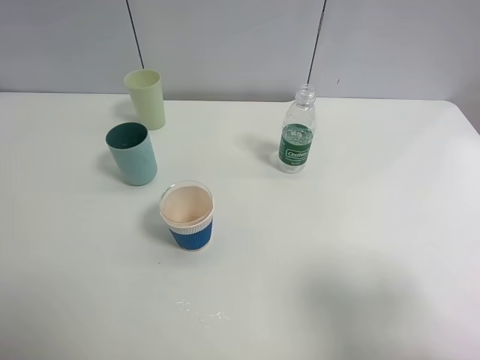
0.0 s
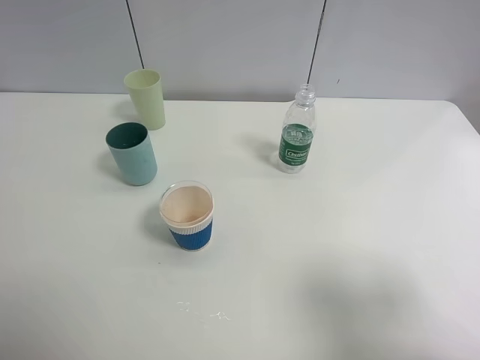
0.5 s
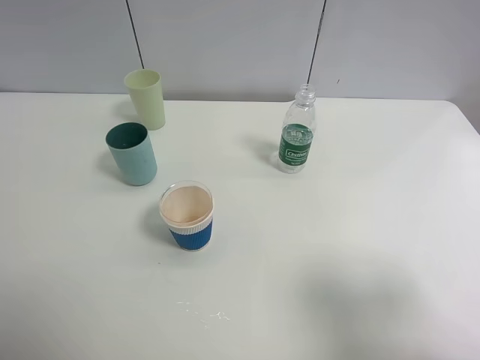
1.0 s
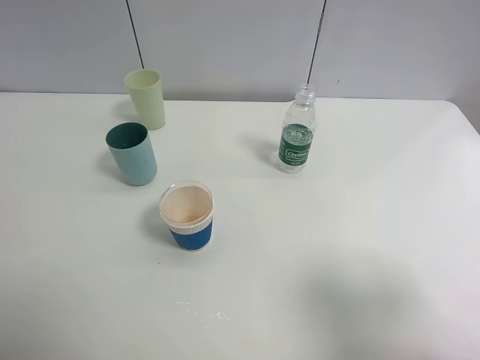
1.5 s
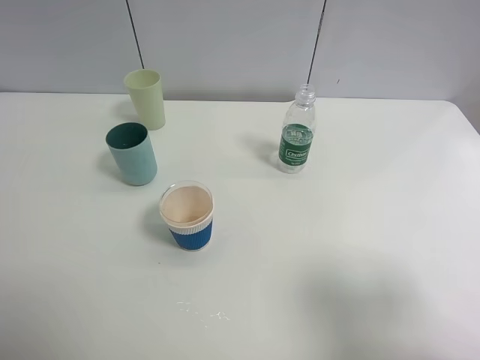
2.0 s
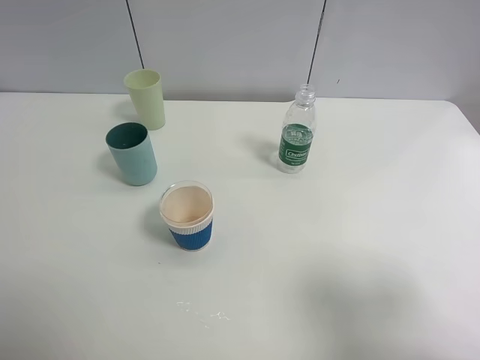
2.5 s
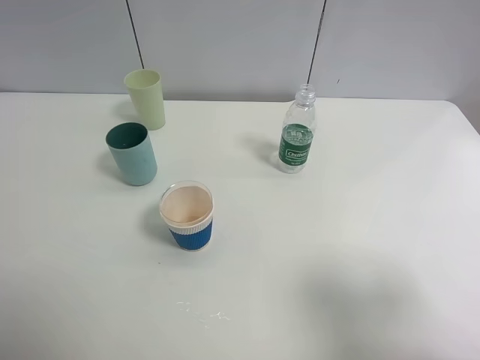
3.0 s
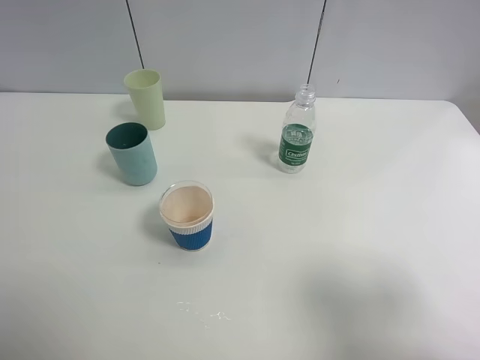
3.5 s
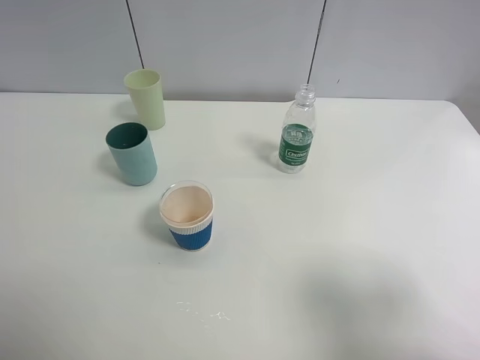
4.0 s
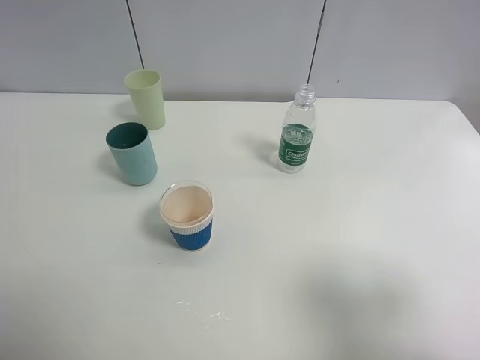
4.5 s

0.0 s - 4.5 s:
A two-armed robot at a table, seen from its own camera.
Task of the whole recording: use a clamp to hold the bottle of the drink, pour the beverage into a random cup, then clamp the cup containing the drink and pour the drink into another random cup.
2.0 s - 4.5 s: Both grippers stay put.

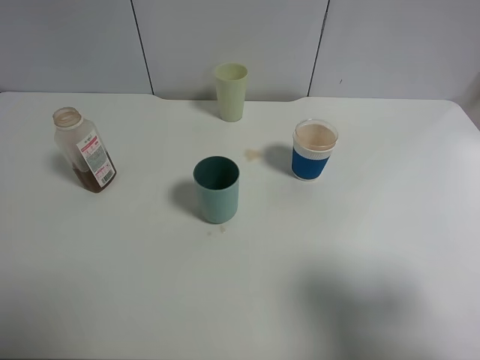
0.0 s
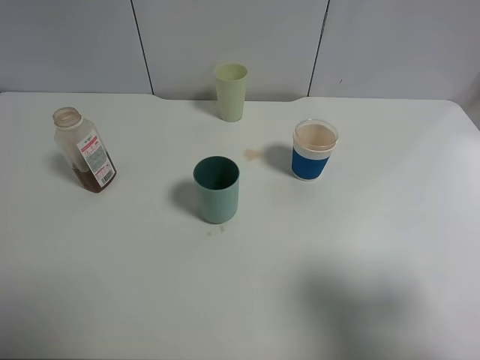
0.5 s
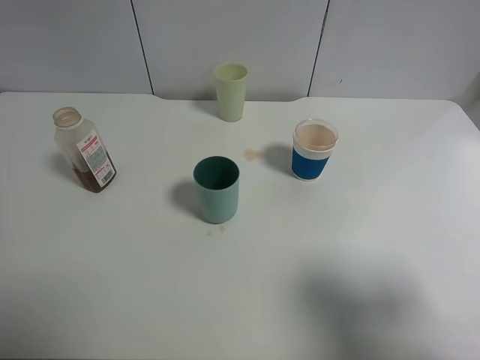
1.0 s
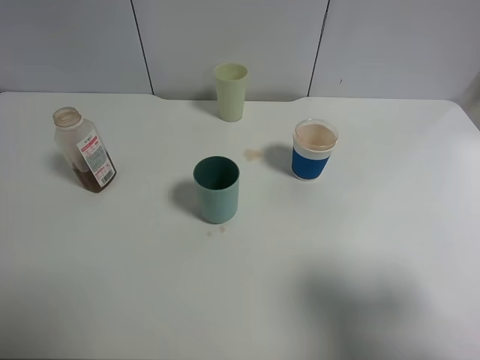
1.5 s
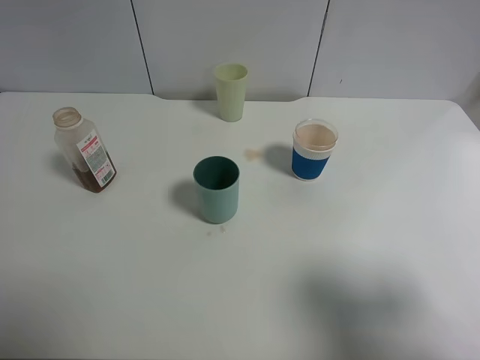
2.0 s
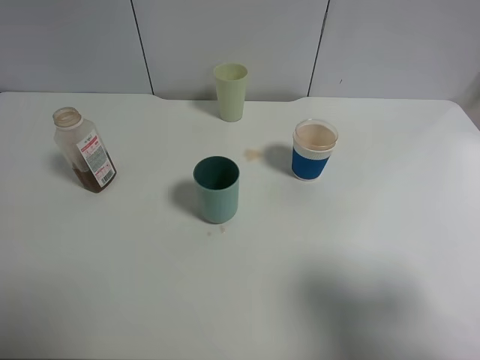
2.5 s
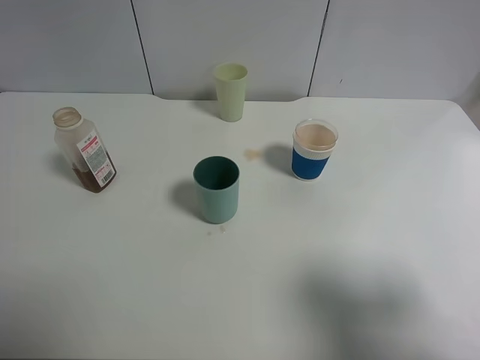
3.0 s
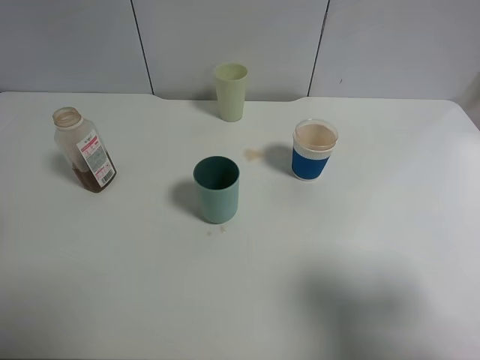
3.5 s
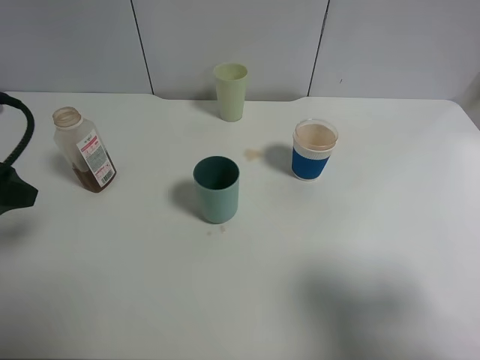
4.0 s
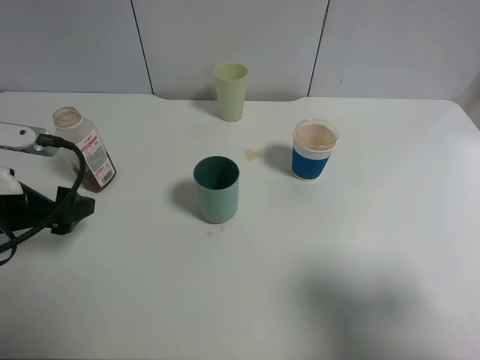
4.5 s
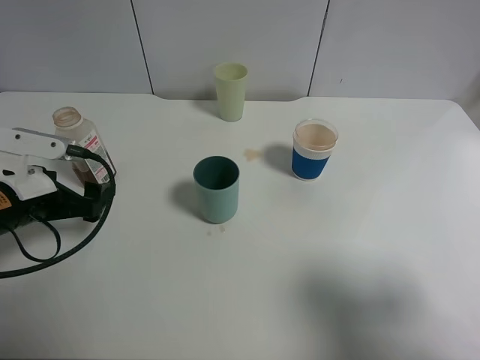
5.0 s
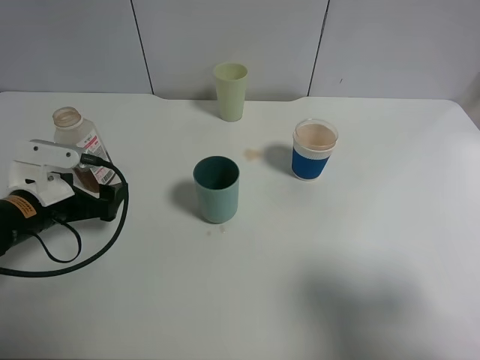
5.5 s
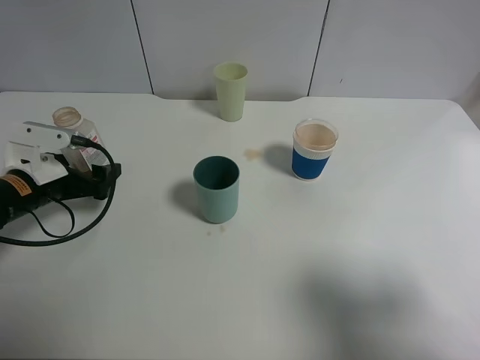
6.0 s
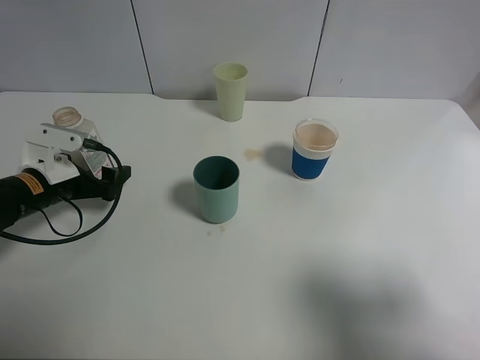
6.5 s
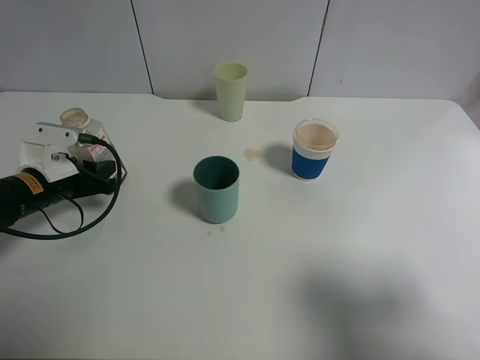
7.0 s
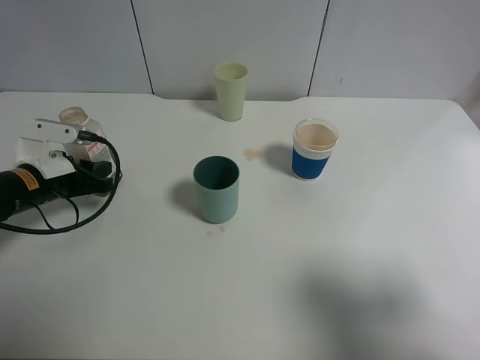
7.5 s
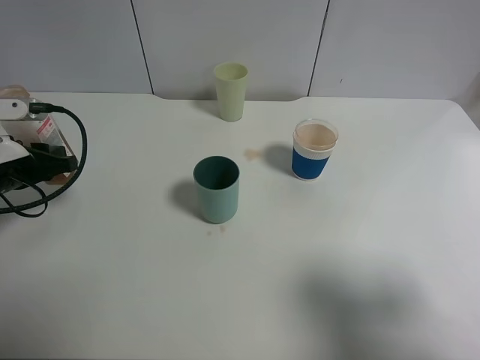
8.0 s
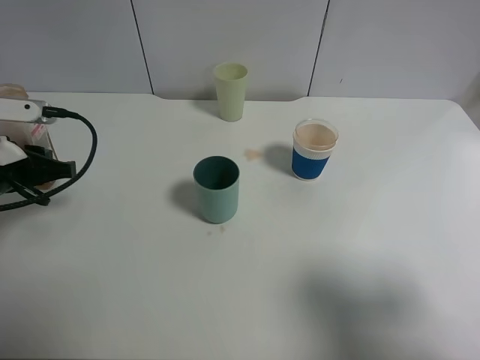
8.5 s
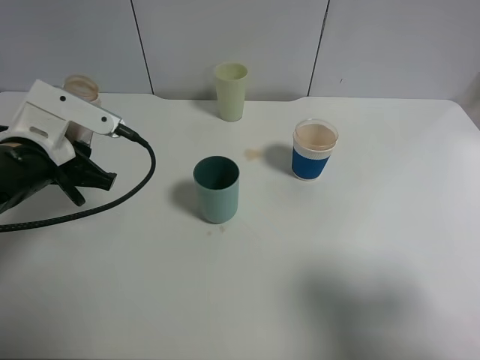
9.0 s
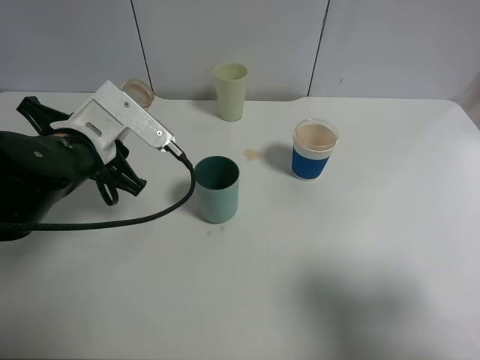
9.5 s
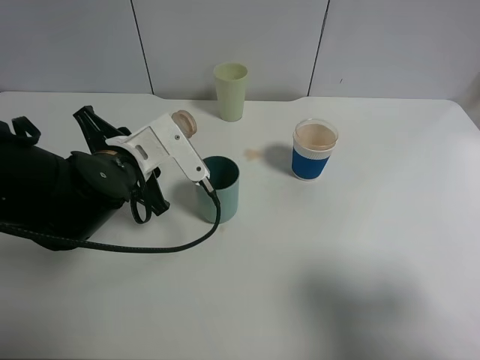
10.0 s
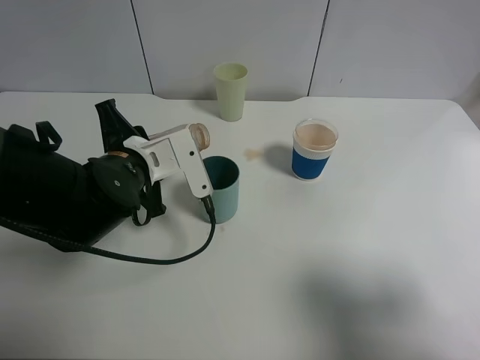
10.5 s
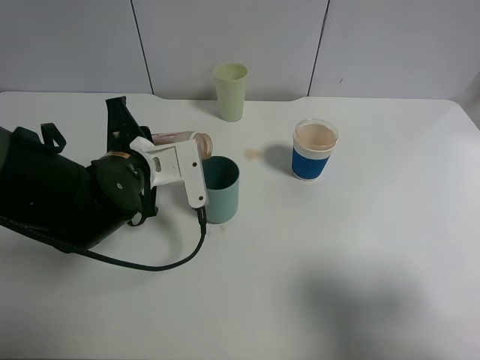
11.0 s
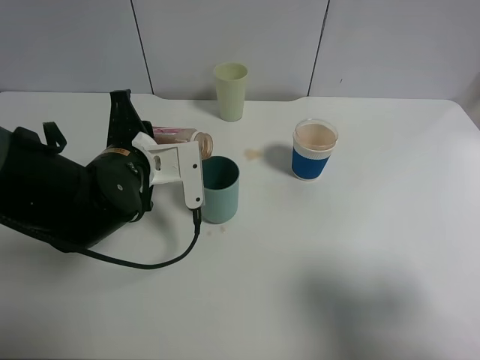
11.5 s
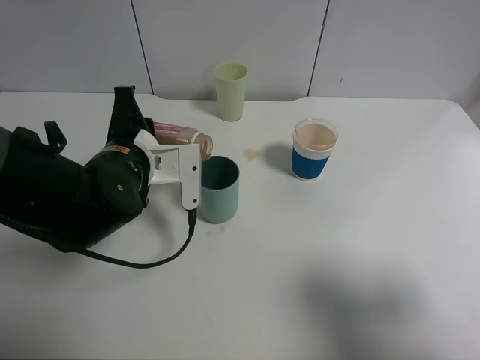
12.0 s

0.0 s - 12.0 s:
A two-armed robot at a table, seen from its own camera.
Task of the whole recording: use a clamp to hold the bottle of the drink, pour the beverage into a random cup, then clamp the cup containing the drink and pour the drink into another random cup.
Step, 0.0 s - 9.0 s: Pick up the drink bottle with left gripper.
0.0 s - 2.0 s: Neither gripper changes place.
2.0 s - 4.0 s: The left gripper shifts some 15 cm forward.
4.0 s - 6.0 s: The left gripper is displaced downward and forward by roughly 20 cm.
6.0 s - 8.0 s: The left gripper ends up about 5 cm from where it was, and closes its fingers.
8.0 s - 10.0 s: The left gripper shifts some 15 cm to the right.

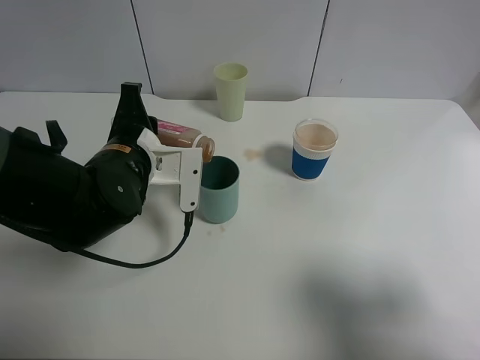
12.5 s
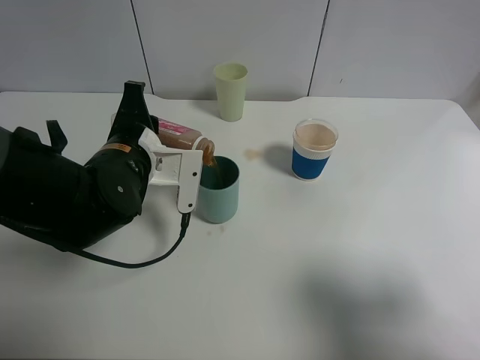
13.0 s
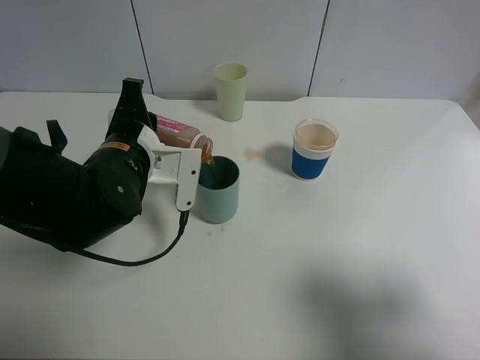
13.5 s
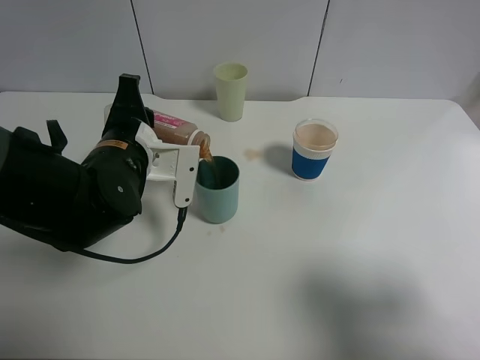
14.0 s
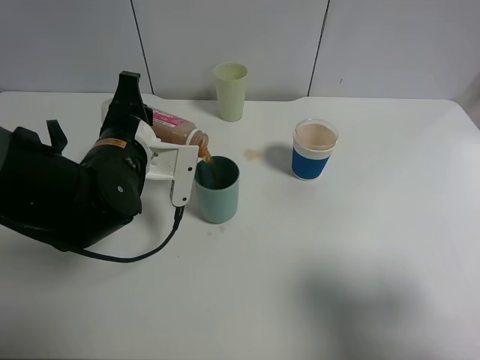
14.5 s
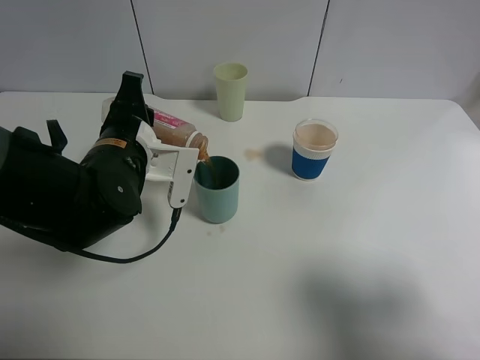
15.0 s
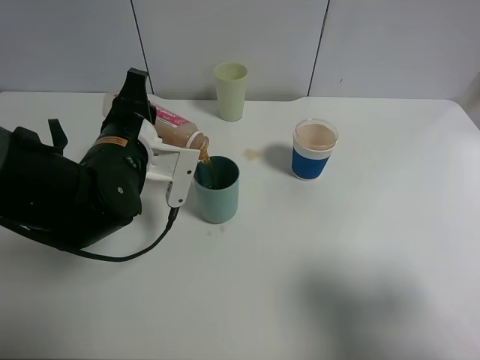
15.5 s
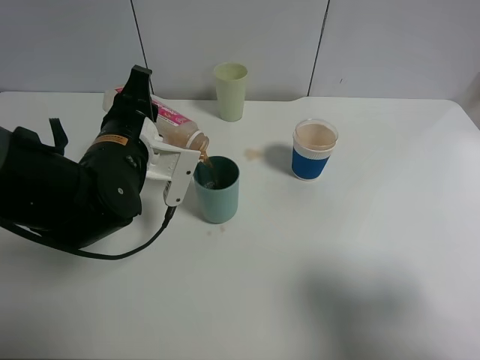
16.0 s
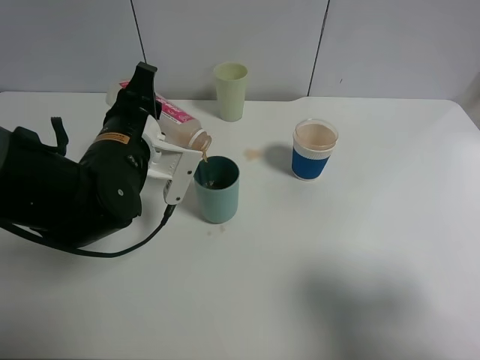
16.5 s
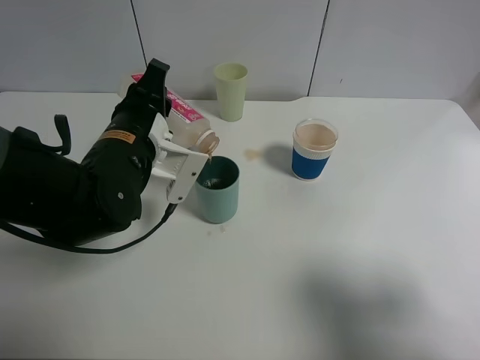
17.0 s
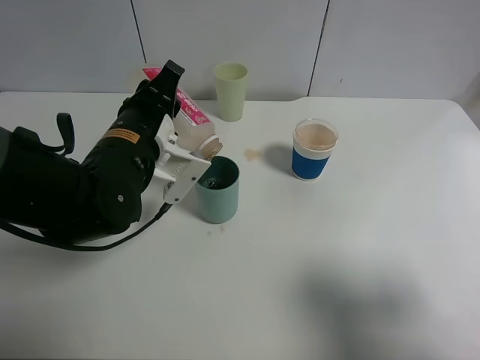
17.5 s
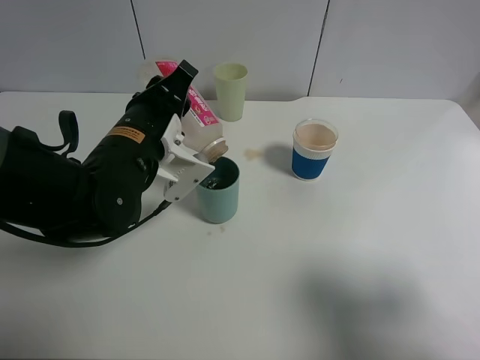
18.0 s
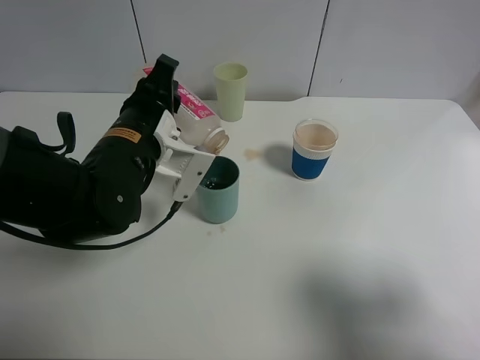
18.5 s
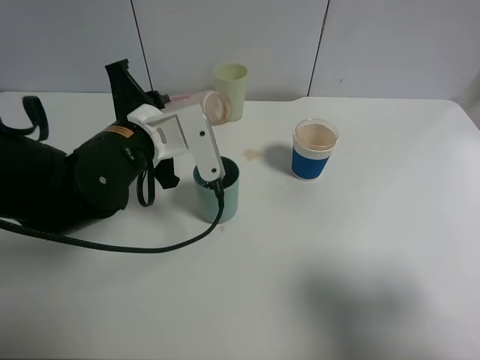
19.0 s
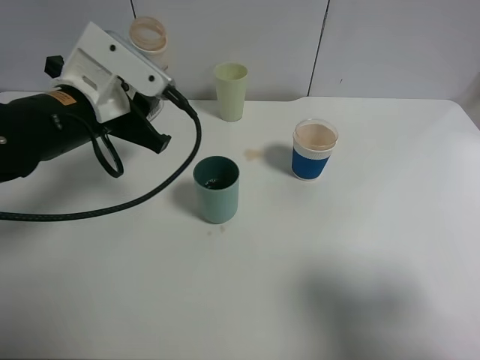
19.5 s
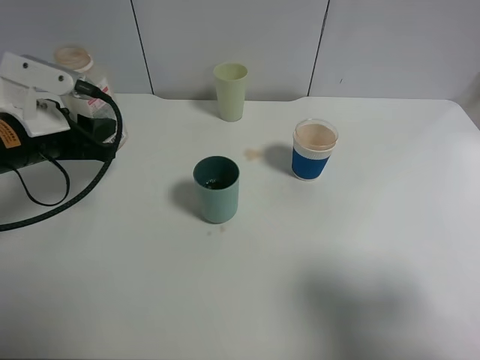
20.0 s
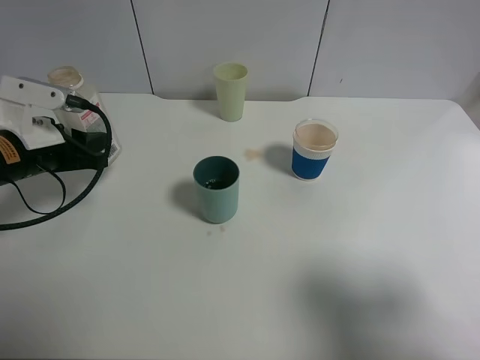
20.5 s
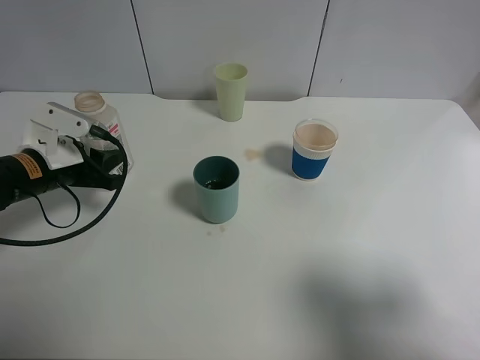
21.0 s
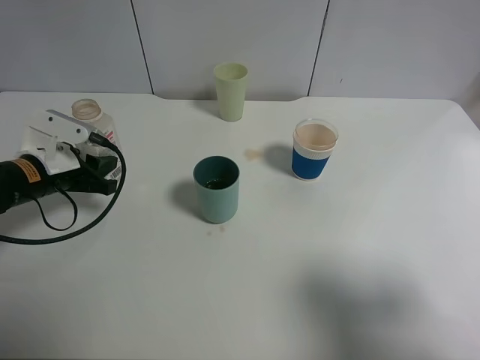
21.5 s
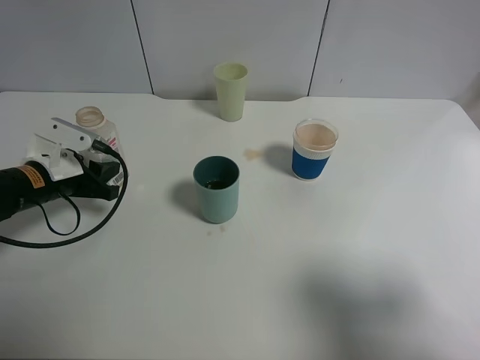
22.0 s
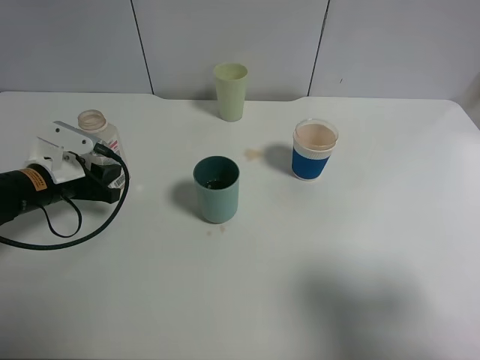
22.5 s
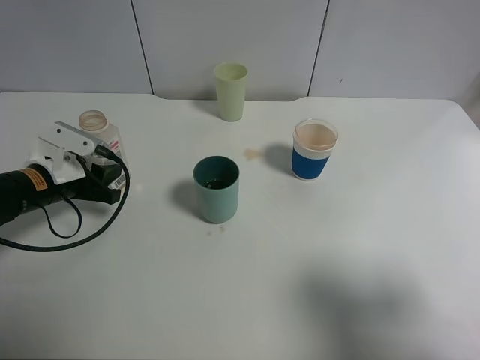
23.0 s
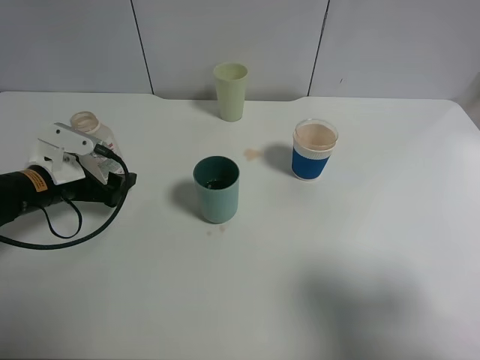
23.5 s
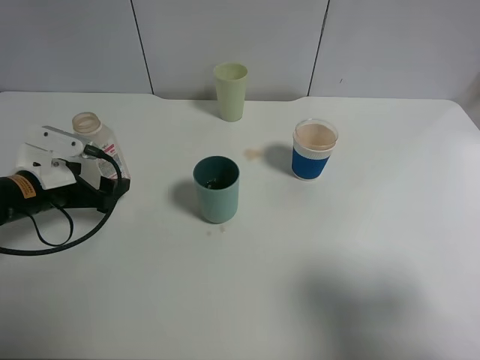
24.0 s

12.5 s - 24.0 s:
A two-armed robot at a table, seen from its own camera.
Task of the whole recording: use a clamp to hold the bottle of the drink, pour the beverage into a random cup, then clamp the cup containing the drink and pour the drink into another random cup.
Step, 12.5 s - 18.5 s: Pour the drink into the blue plastic cup with left gripper.
Step, 19.0 s - 23.5 s: Place the drink bottle on the table with left gripper.
12.5 s - 16.5 s: The grippers move only a little.
18.5 s - 20.0 s: The left gripper heads to the left, covering about 15 cm.
20.0 s - 22.0 s: The left gripper shifts roughly 10 cm downward.
22.0 s - 24.0 s: The left gripper opens its fingers.
